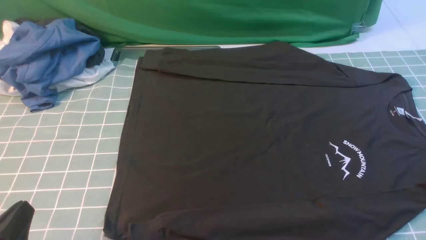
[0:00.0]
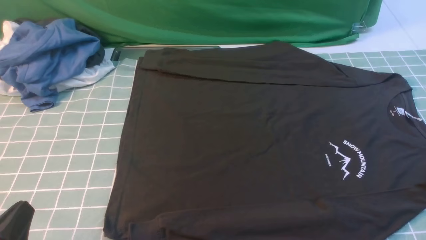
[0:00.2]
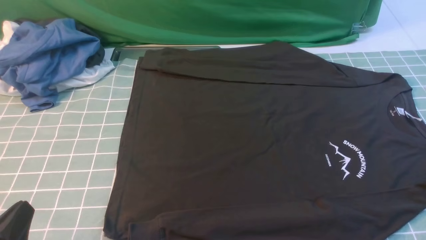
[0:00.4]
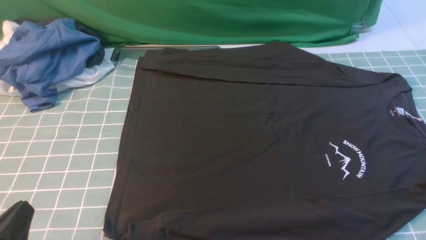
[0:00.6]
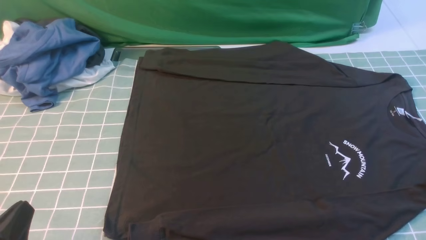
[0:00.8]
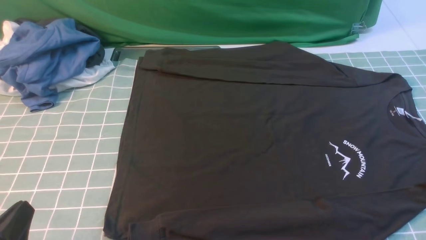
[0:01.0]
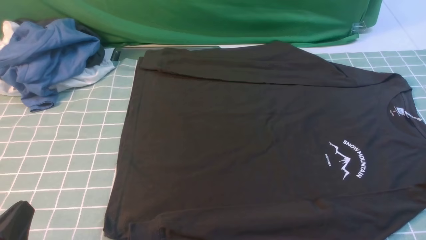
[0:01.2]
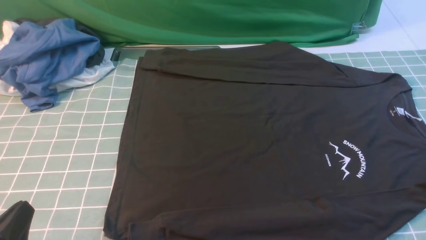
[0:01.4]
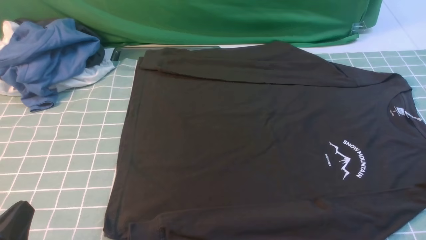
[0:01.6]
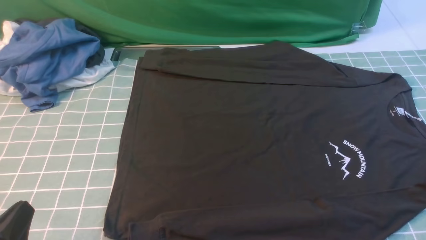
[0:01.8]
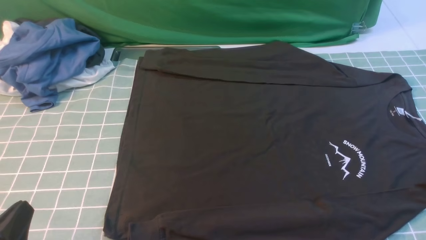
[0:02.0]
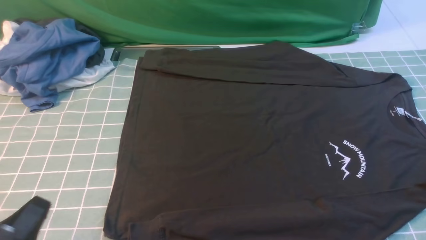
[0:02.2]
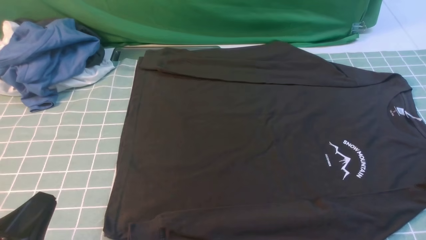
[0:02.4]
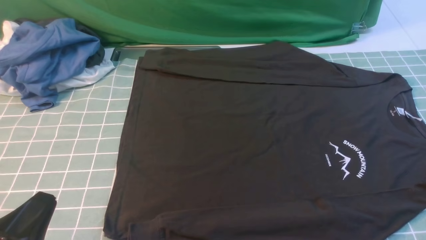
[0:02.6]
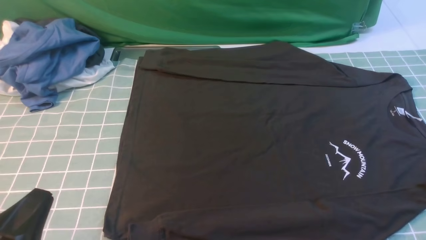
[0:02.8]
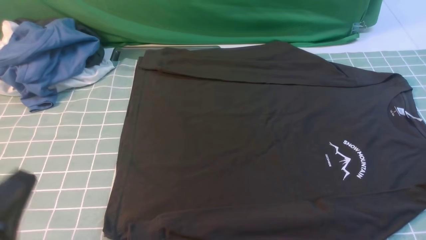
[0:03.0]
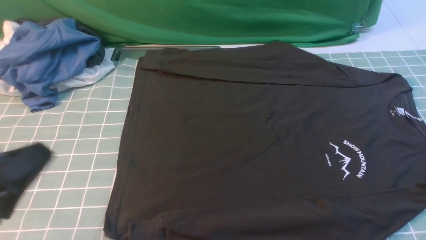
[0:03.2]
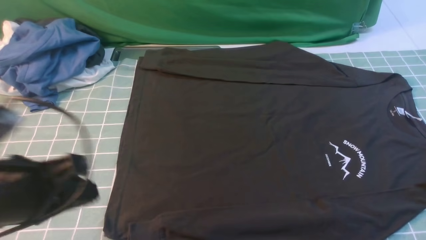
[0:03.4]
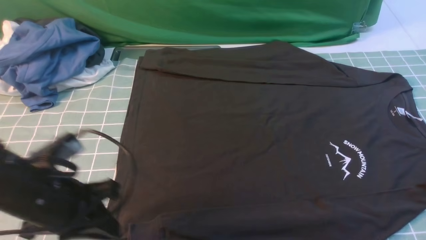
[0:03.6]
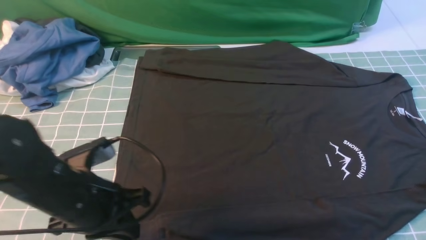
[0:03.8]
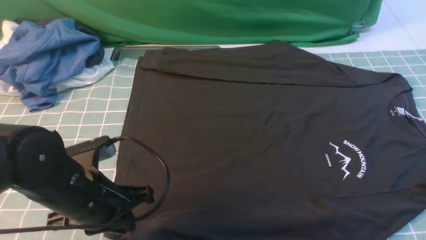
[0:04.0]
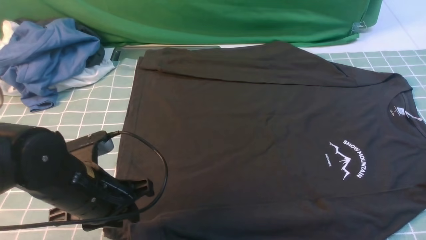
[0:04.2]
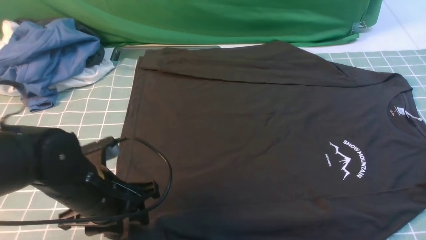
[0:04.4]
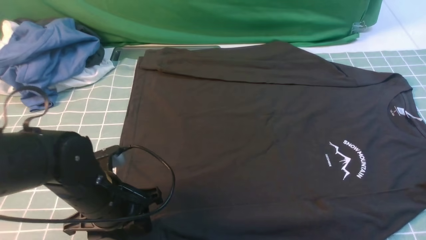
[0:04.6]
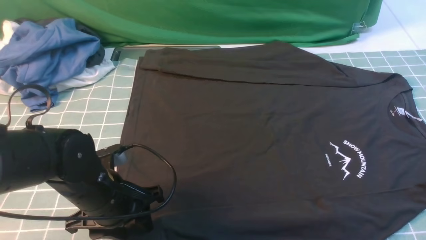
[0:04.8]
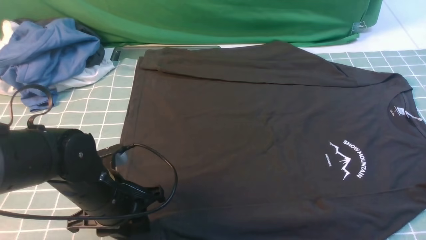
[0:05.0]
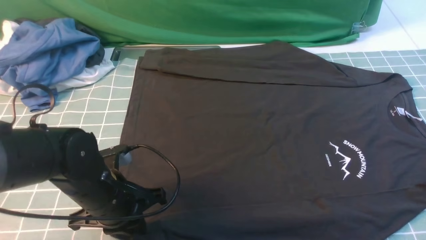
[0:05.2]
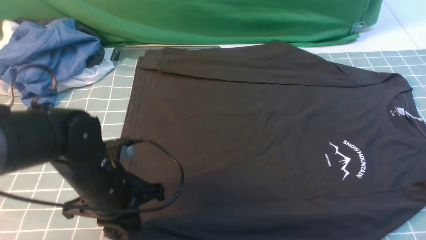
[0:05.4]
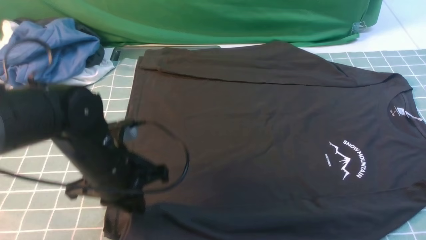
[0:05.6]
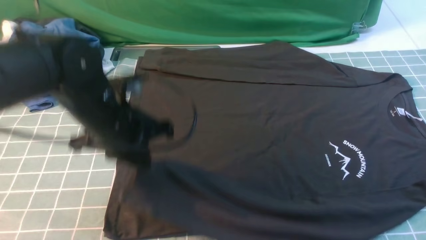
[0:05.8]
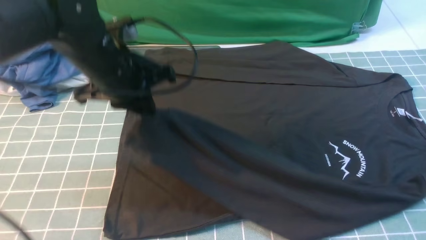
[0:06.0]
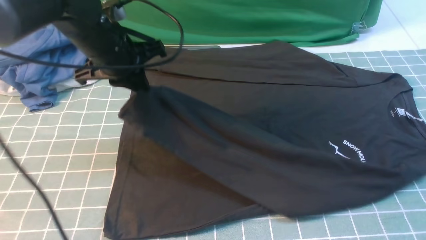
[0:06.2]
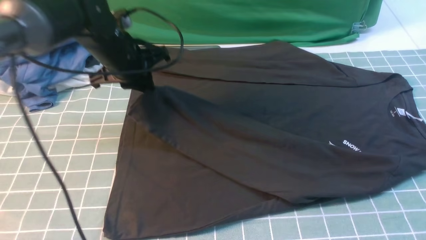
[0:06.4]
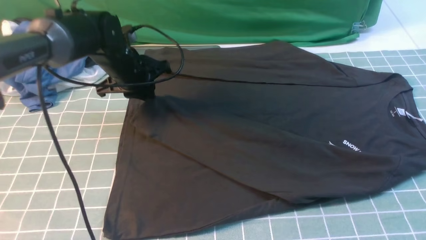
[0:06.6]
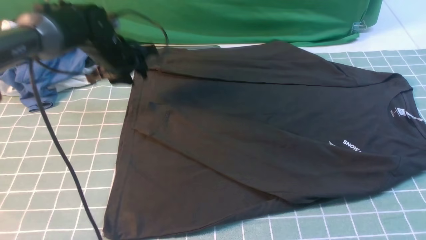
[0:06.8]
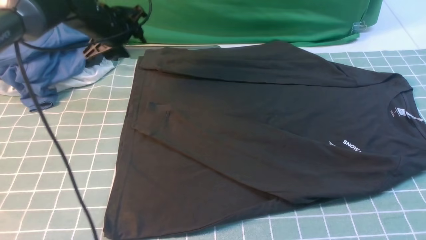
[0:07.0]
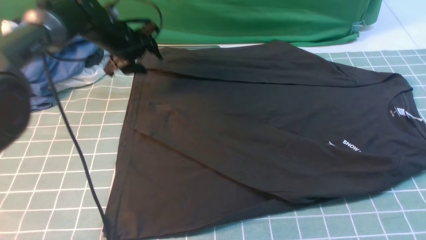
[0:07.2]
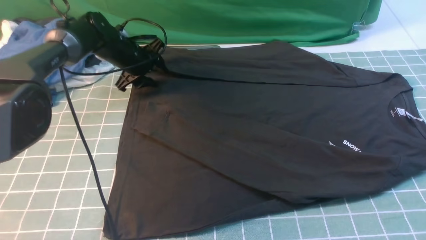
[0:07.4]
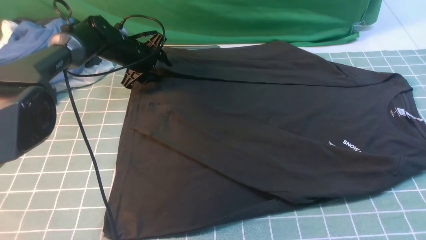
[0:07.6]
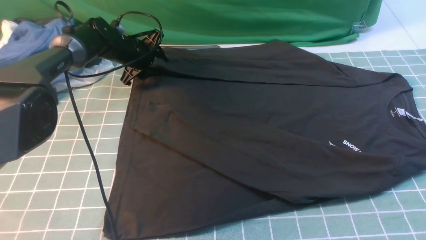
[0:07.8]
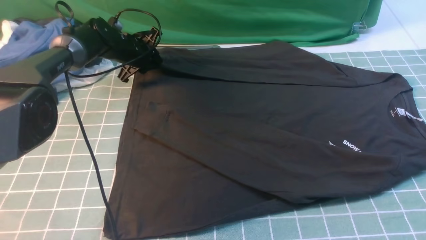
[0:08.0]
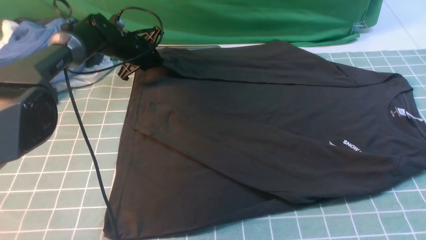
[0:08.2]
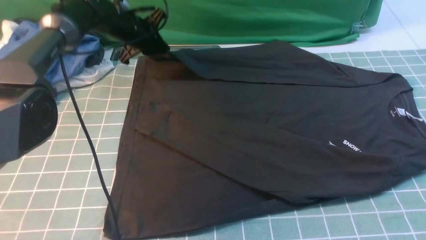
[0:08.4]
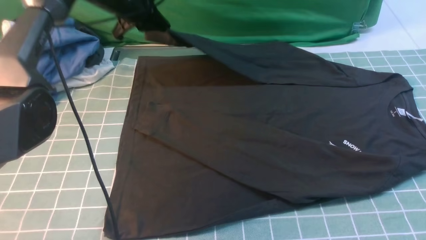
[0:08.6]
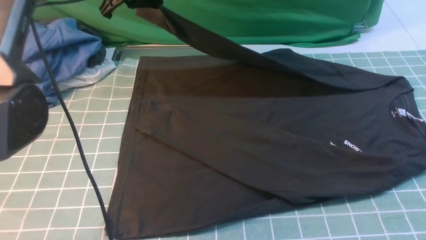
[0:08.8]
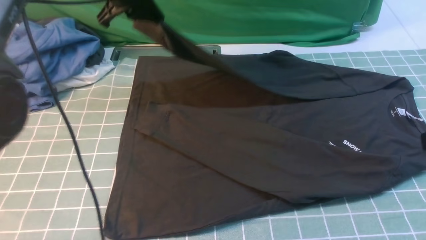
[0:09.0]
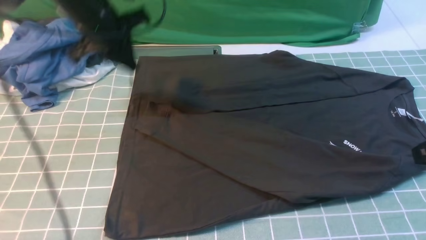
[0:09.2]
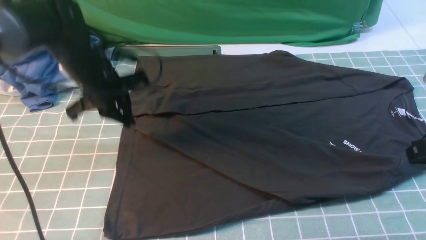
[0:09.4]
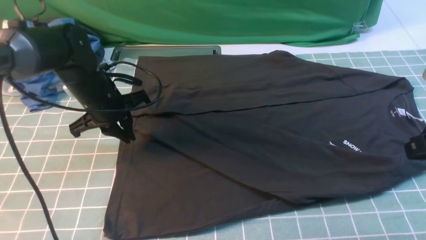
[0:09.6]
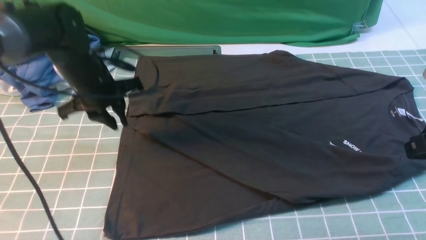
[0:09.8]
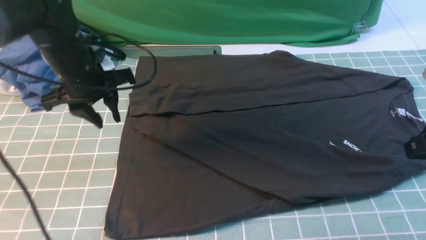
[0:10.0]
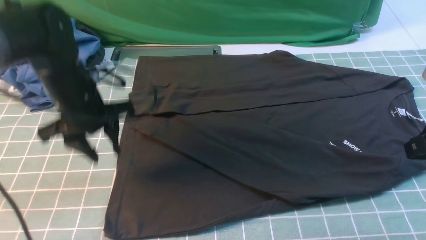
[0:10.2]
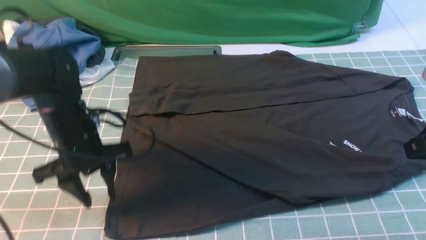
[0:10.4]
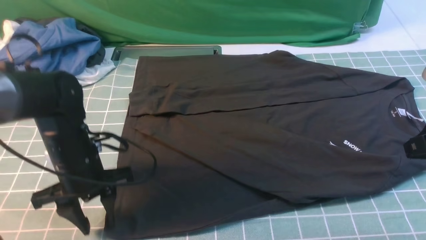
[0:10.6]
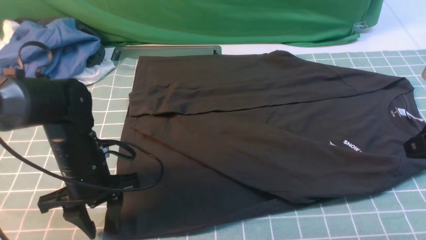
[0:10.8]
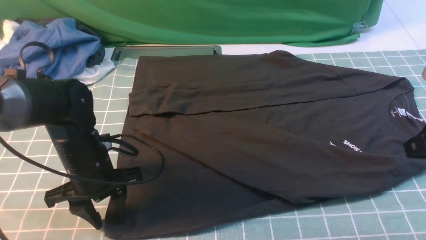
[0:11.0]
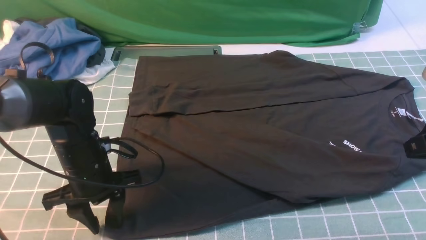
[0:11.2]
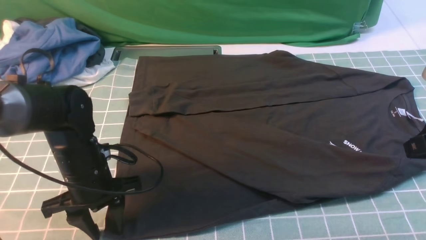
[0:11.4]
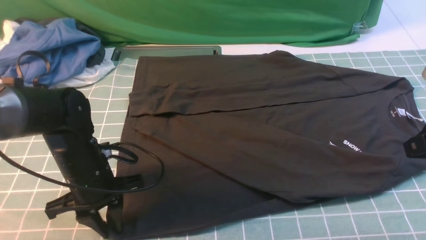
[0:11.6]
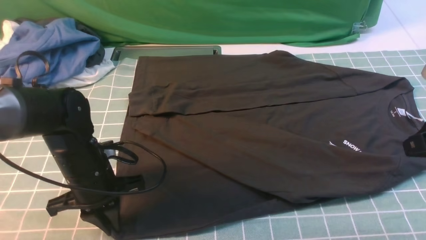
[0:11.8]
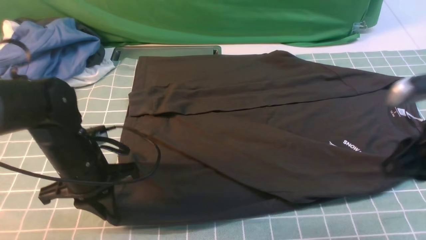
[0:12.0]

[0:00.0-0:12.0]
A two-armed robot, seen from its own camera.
Step, 0:00.0 to 0:05.0: use the left arm to clamp the cuff closest to it.
Step, 0:05.4 to 0:06.6: use the left arm to drag and place the cuff at the centered position on the left edge of the fabric.
Step, 0:06.8 to 0:08.0: use the left arm to clamp the cuff farthest from it.
Step, 0:08.4 to 0:09.6: use the left arm to drag and drop the cuff onto the cuff closest to the left arm.
0:00.0 to 0:01.6: Neither gripper changes place.
0:01.6 to 0:03.0: The left gripper shifts roughly 5 cm upward.
0:03.0 to 0:04.4: The right gripper heads forward and upward, covering roughly 15 cm. The left gripper is displaced forward, downward and to the right by roughly 20 cm, and opens its fingers.
0:04.4 to 0:06.0: The left gripper heads forward and upward, covering approximately 15 cm, and closes.
0:06.0 to 0:07.6: The left gripper is displaced forward and downward by about 25 cm, and opens up.
0:07.6 to 0:09.0: The left gripper shifts roughly 20 cm upward and backward, and closes.
0:09.0 to 0:10.4: The left gripper is displaced backward and downward by roughly 20 cm, and opens up.
0:10.4 to 0:12.0: The left gripper closes up.

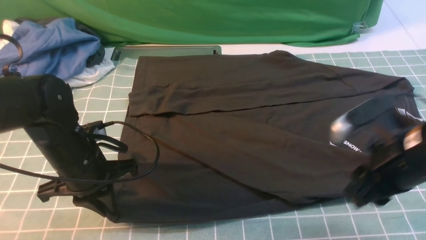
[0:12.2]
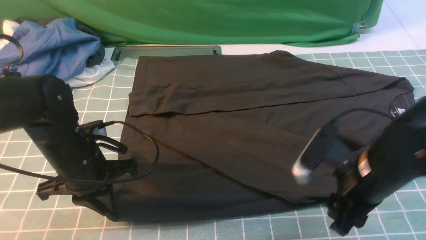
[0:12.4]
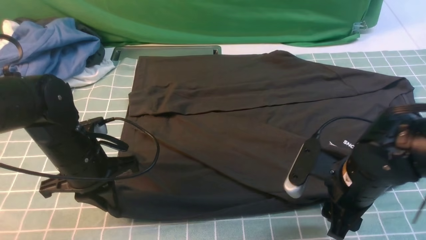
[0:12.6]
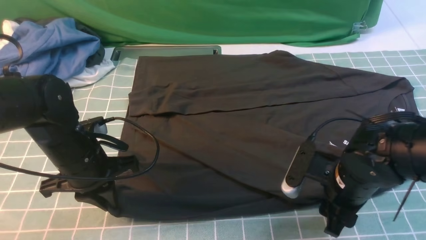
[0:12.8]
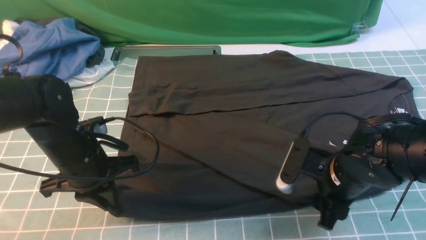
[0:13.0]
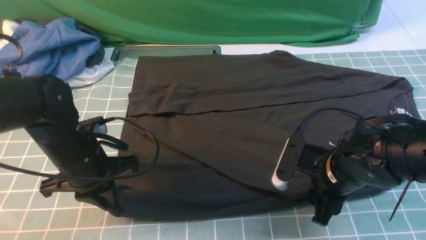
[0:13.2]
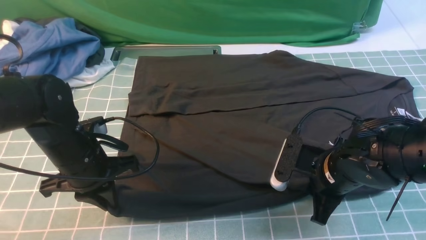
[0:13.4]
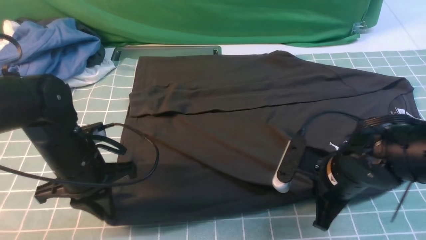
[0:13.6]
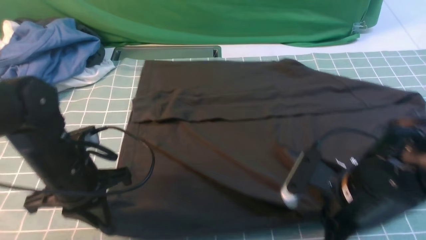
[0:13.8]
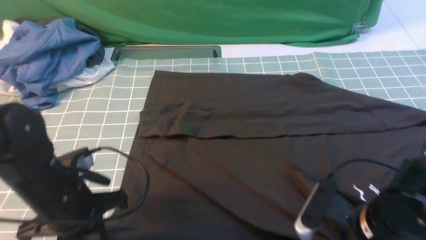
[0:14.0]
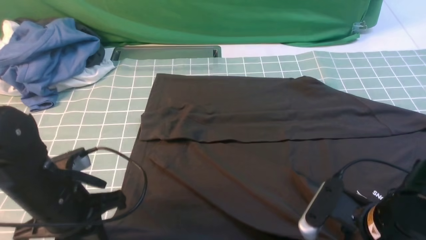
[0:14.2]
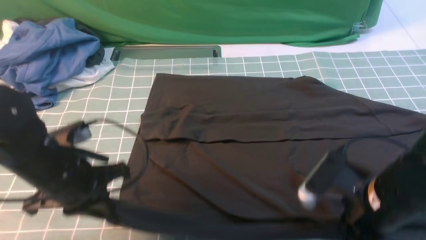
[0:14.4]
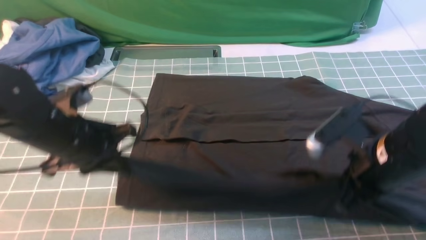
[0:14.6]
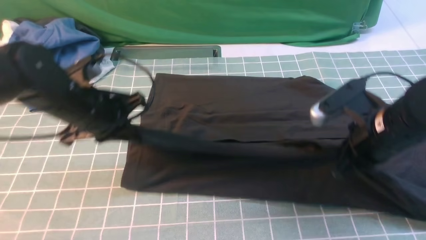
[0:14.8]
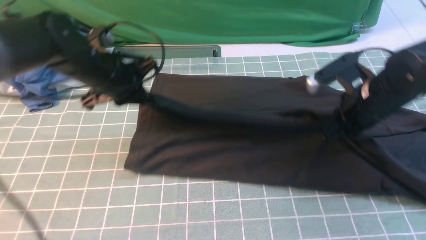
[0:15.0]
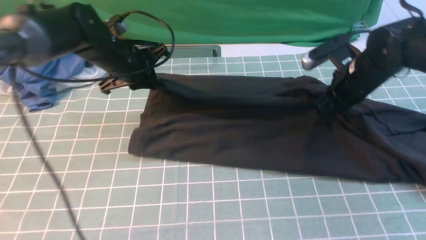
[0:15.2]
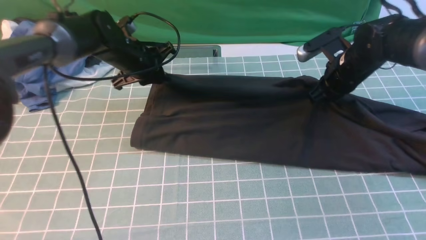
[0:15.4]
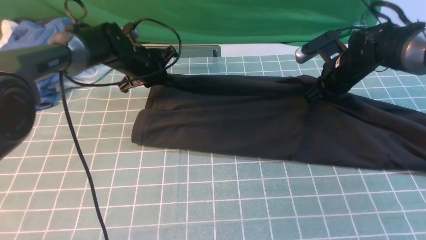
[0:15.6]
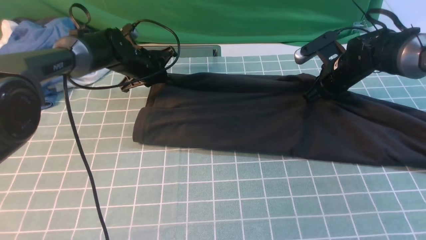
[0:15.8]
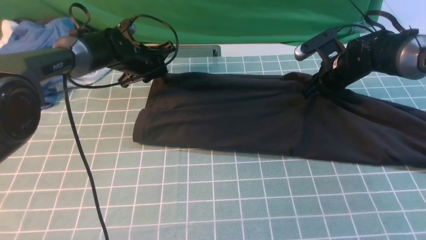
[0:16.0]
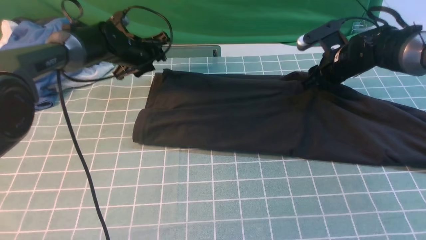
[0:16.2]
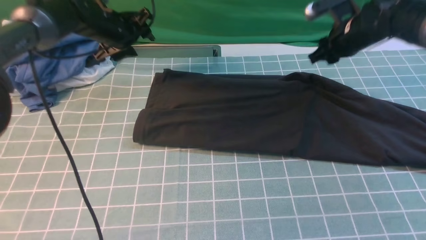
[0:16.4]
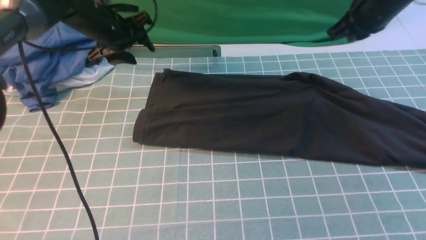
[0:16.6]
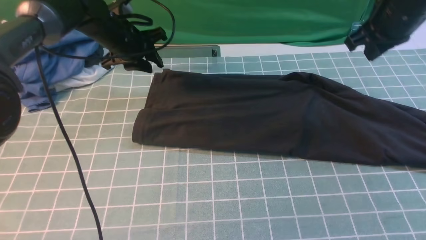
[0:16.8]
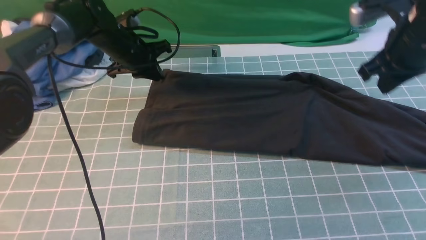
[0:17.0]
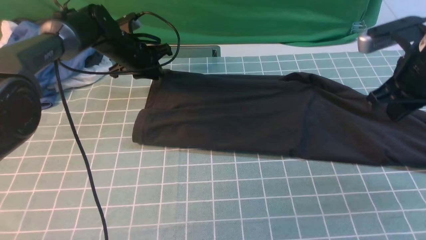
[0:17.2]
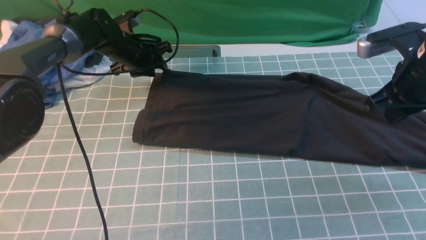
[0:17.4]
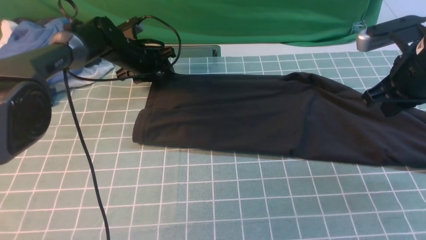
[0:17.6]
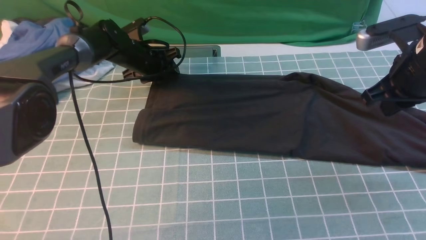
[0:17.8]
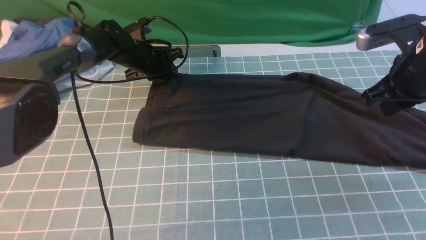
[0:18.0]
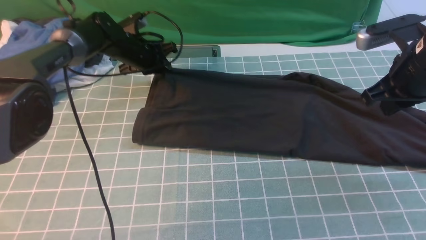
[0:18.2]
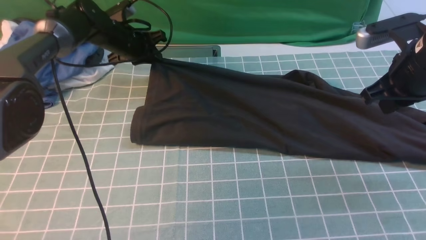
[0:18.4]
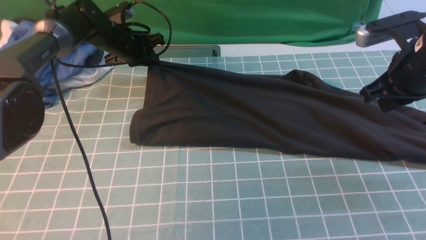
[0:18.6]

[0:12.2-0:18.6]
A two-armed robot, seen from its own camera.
Step, 0:14.0 to 0:16.2: use both arms to drag the lower edge of the fabric forward and fold it over the upper edge.
0:12.2 to 0:13.8: The right gripper heads downward, covering some 5 cm, and closes.
0:13.8 to 0:15.4: The two grippers go approximately 25 cm forward.
0:15.4 to 0:17.0: The right gripper travels upward and backward by some 15 cm, and opens, then closes again, while the left gripper opens and closes again.
0:17.0 to 0:18.6: The left gripper opens and closes again.
